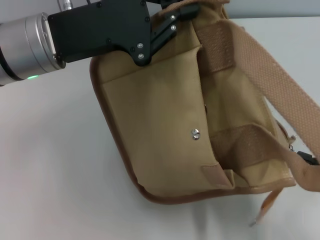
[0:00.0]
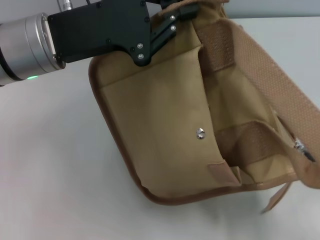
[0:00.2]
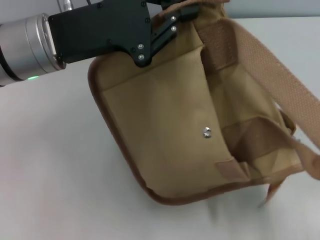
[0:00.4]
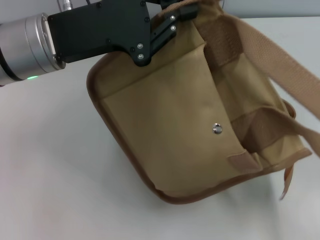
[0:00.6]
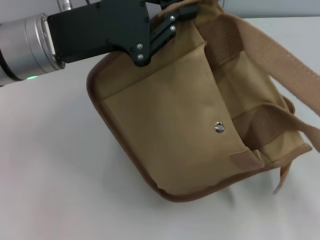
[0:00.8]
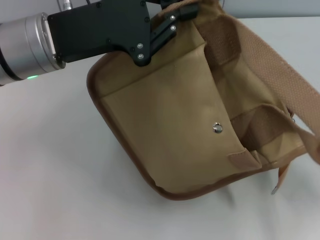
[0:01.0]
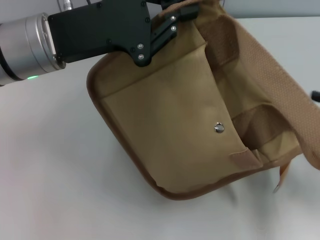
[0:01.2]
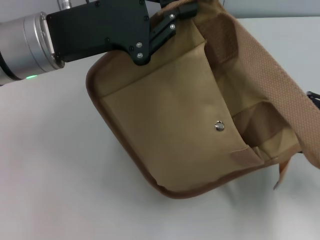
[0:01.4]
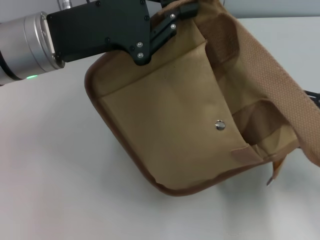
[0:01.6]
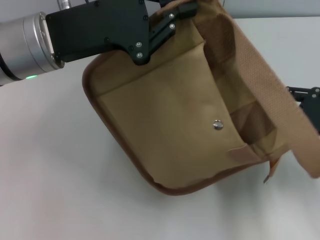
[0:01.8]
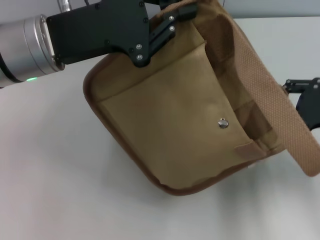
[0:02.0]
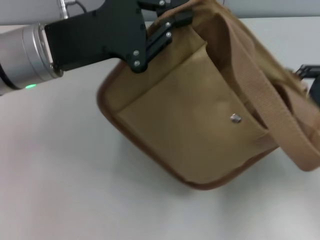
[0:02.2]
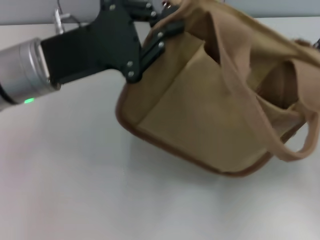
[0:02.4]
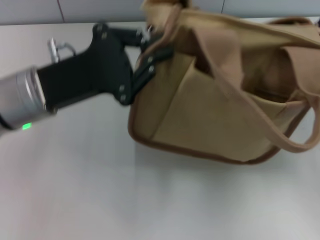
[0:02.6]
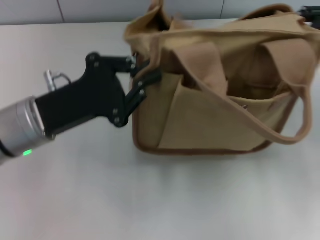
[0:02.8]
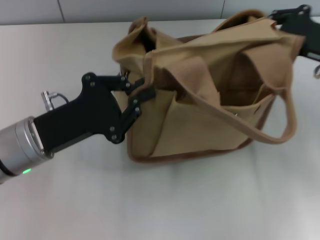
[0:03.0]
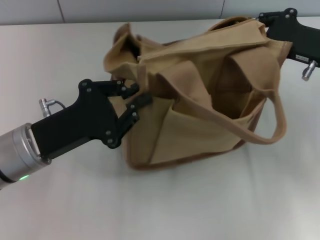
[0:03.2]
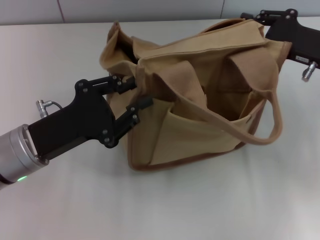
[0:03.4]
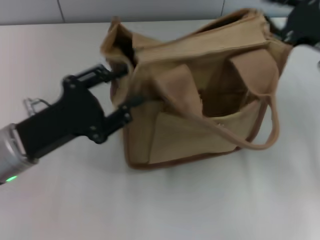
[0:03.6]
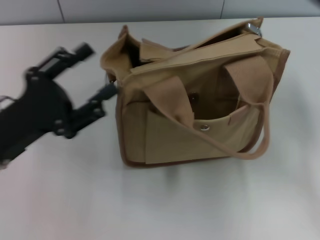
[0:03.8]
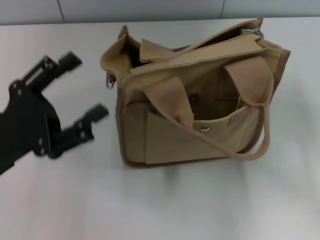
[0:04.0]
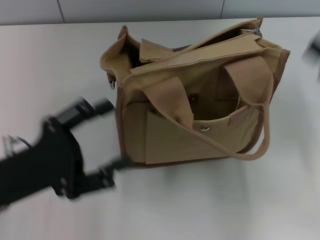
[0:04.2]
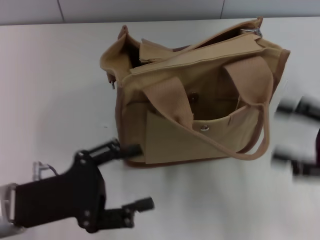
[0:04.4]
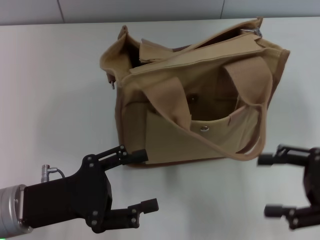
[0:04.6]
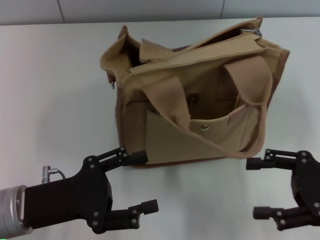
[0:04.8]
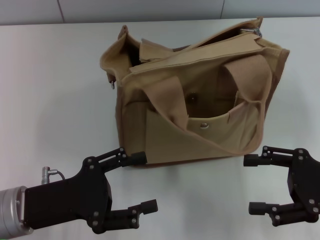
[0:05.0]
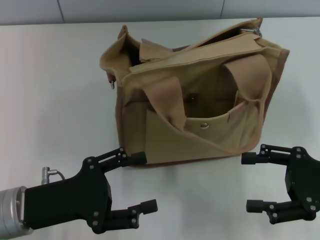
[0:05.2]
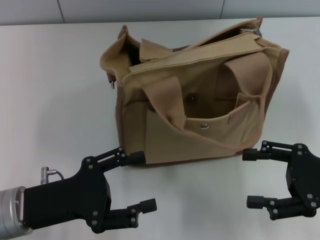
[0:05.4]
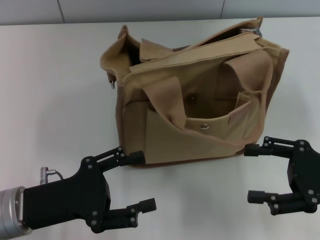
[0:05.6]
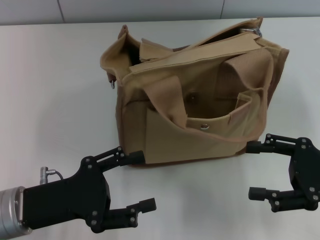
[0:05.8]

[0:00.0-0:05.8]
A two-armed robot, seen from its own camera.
Step, 0:01.0 to 0:04.0: Grab the bag with your left hand.
0:00.0 to 0:01.4: The right gripper goes some 10 cm forward, and opens.
0:01.4 to 0:02.8: The left gripper heads downward, covering approximately 10 cm. Meanwhile the right gripper moves forward and upward, approximately 10 cm, and closes up.
0:02.8 to 0:04.4: The grippers both shift backward by approximately 10 cm. The left gripper opens; the right gripper opens its fingers.
0:04.4 to 0:05.8: The grippers move only a little.
